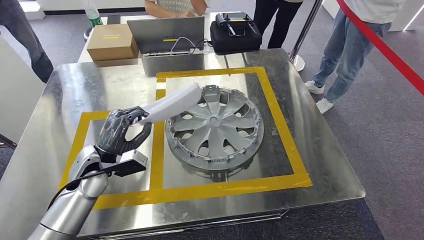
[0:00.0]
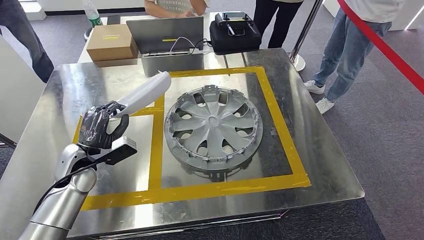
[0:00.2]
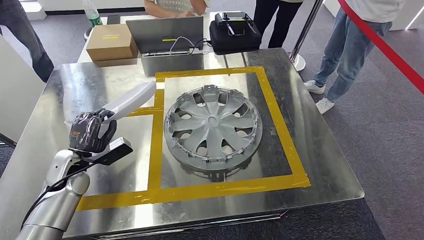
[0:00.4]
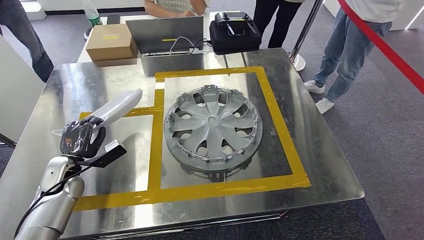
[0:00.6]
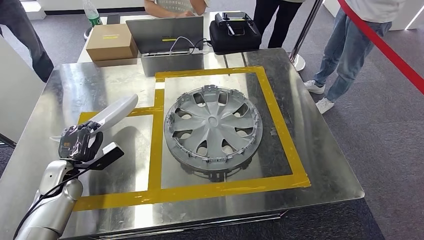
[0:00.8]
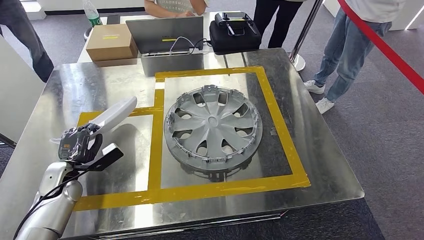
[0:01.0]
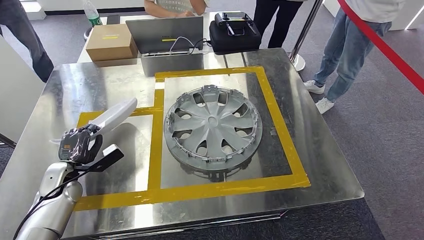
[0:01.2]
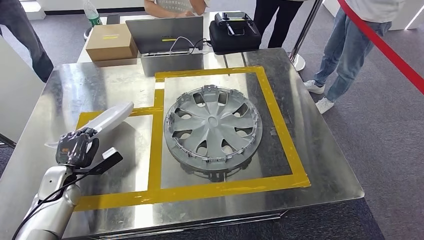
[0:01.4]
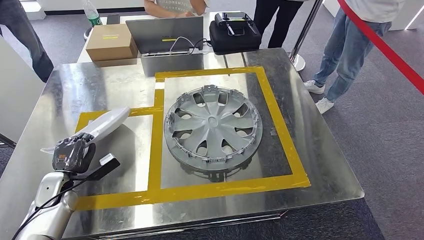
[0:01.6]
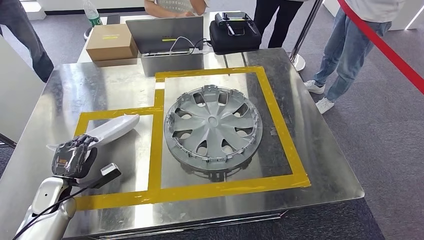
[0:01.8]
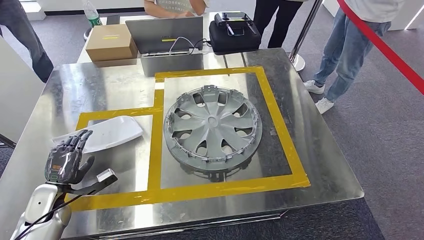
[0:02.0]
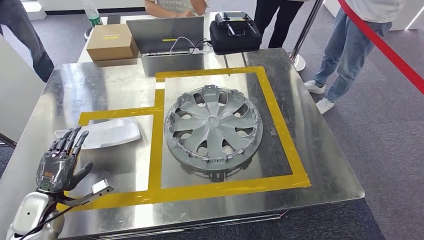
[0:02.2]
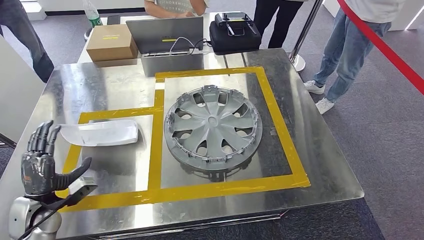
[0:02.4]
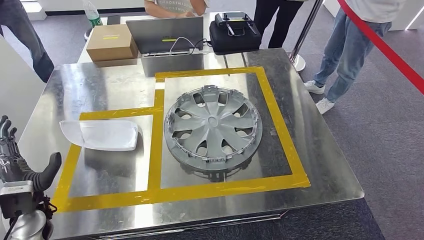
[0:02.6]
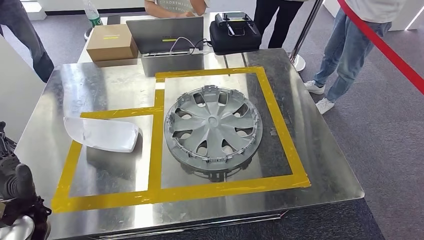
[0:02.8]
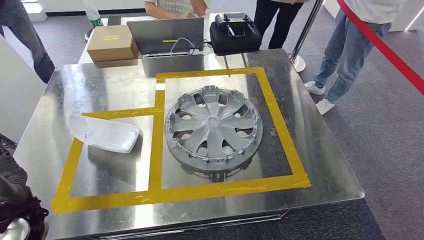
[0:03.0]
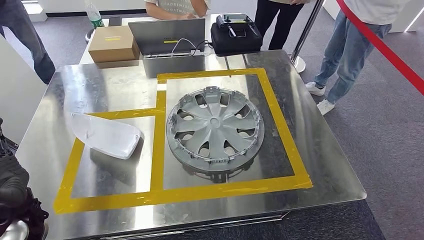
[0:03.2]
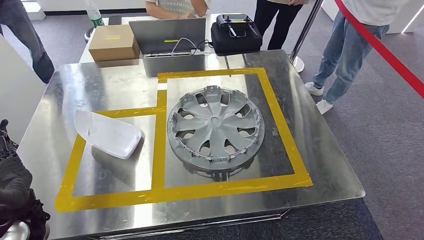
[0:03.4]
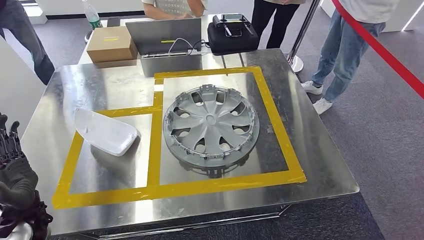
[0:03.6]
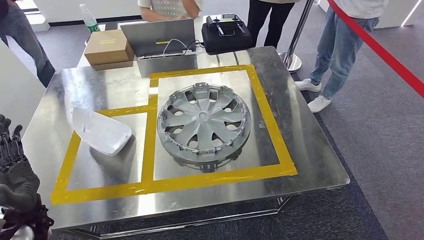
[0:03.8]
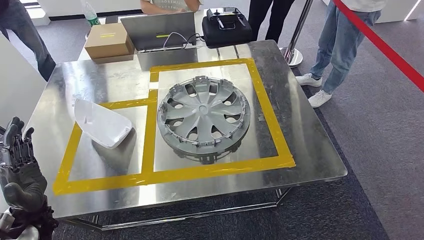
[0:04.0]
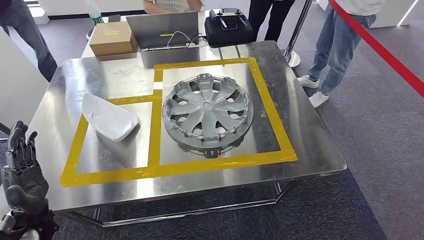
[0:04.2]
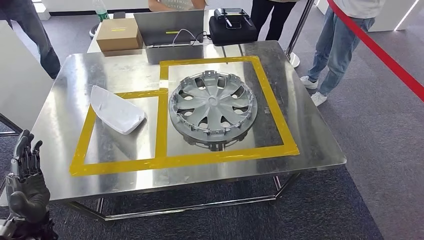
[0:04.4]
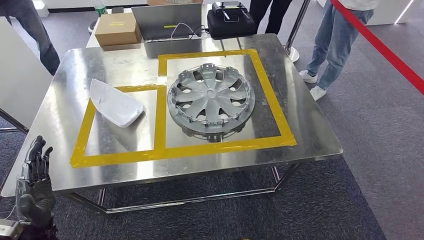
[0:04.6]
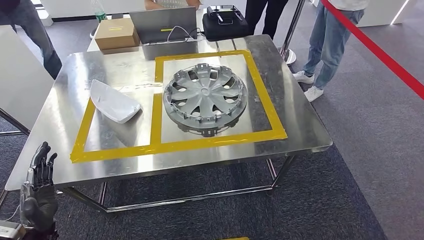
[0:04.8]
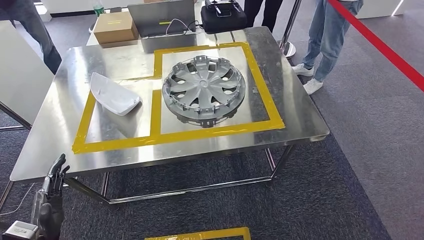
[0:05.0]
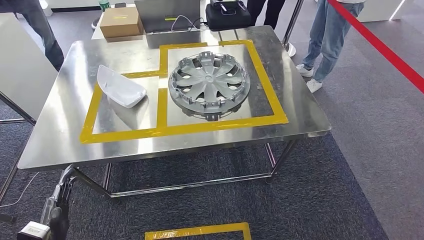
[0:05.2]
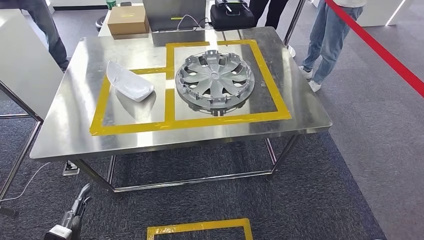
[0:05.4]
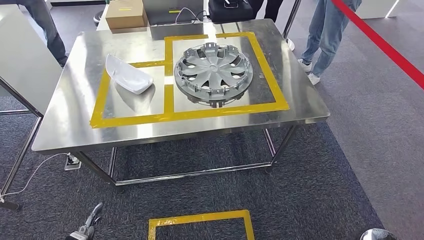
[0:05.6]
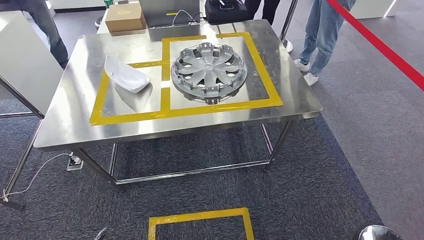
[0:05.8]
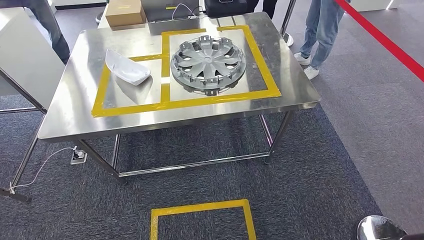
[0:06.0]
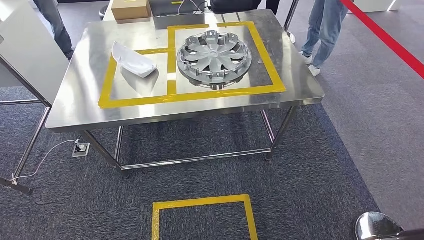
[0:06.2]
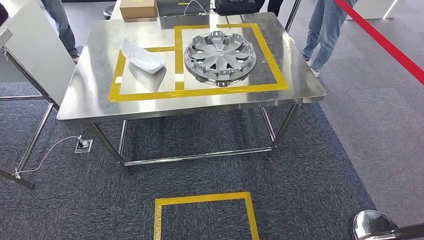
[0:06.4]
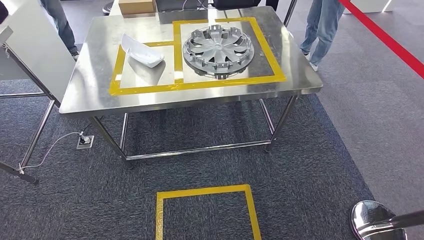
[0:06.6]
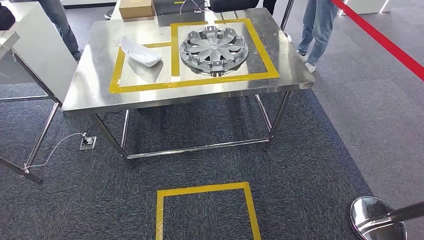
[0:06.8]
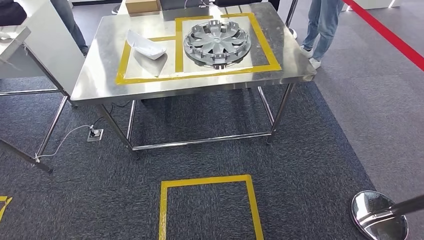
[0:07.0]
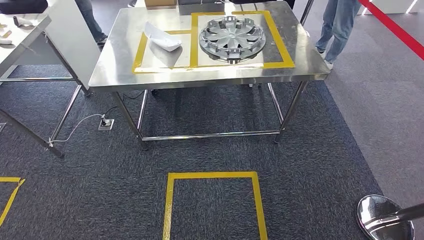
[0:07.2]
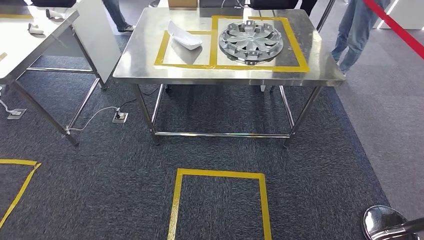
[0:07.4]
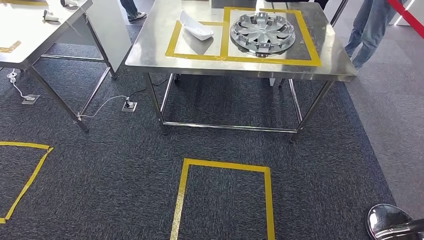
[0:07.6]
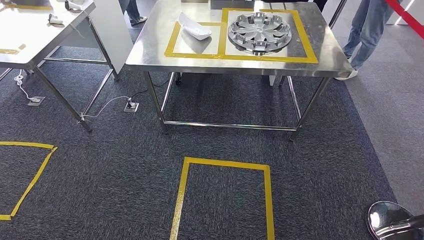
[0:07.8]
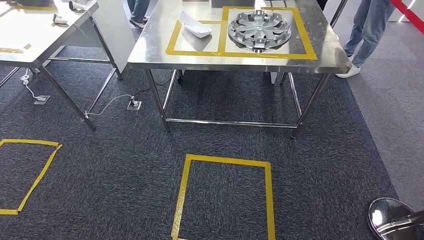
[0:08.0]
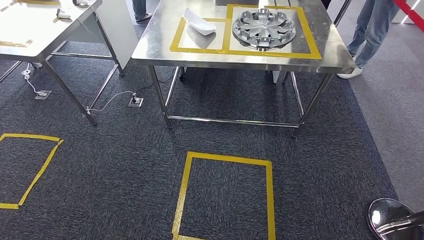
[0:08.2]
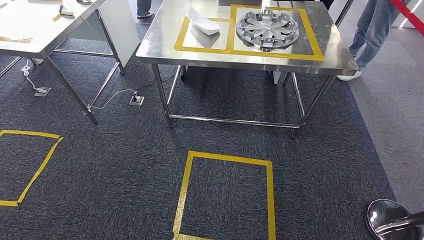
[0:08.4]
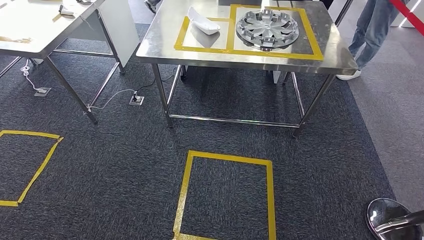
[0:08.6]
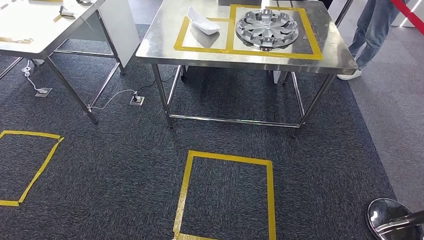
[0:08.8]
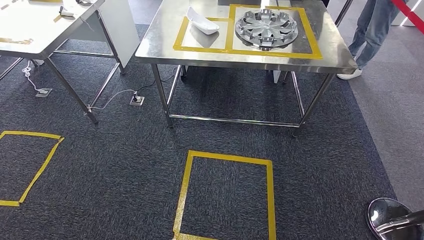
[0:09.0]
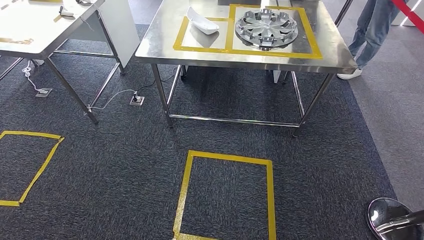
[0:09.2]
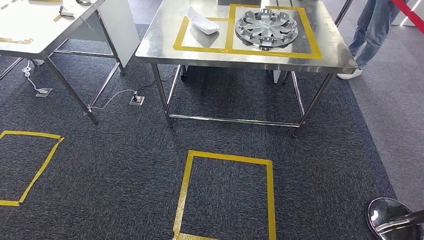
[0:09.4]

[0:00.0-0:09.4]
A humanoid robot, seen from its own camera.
Step, 0:00.0 to 0:04.0: Insert the small component into the corresponding slot on the workbench.
Step, 0:04.2 to 0:09.4: Return to the initial position at the workbench.
0:00.0 to 0:01.6: The left hand travels to the left and downward by roughly 20 cm.
